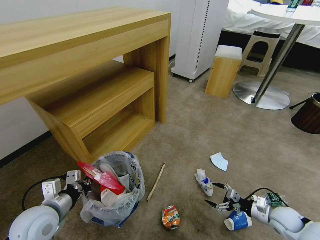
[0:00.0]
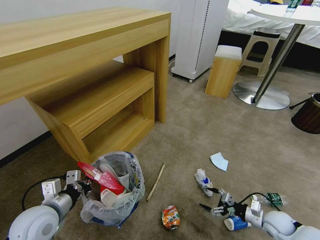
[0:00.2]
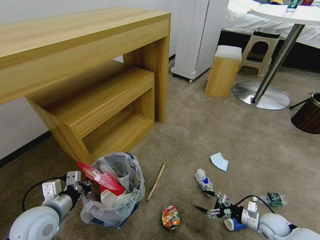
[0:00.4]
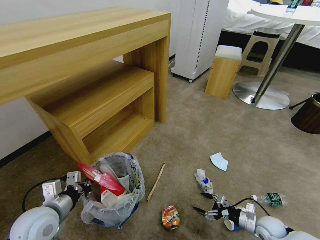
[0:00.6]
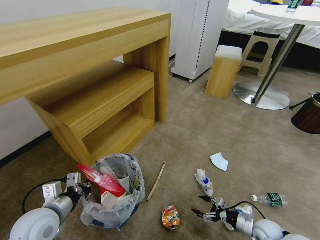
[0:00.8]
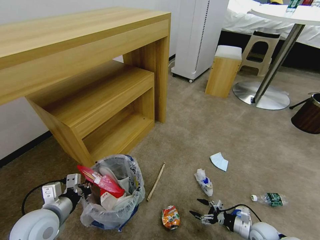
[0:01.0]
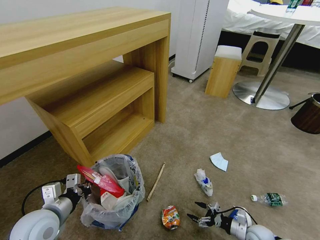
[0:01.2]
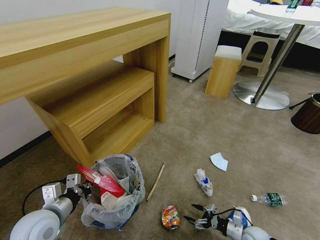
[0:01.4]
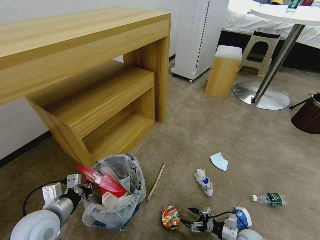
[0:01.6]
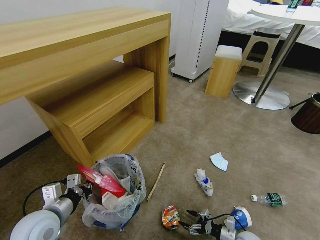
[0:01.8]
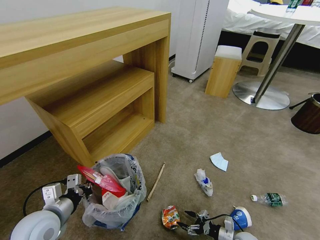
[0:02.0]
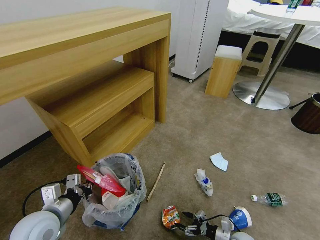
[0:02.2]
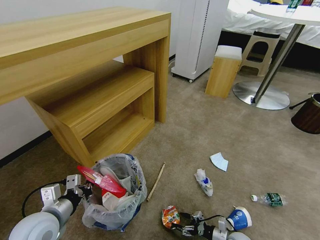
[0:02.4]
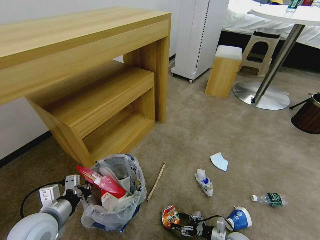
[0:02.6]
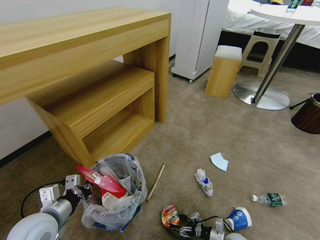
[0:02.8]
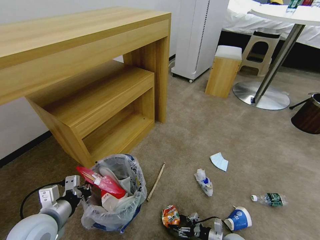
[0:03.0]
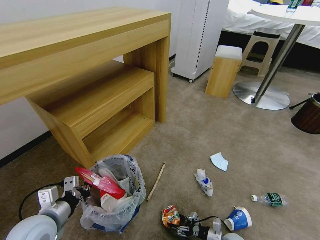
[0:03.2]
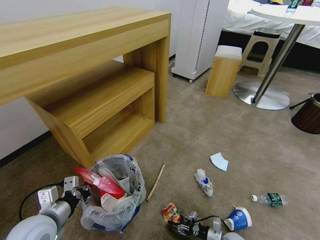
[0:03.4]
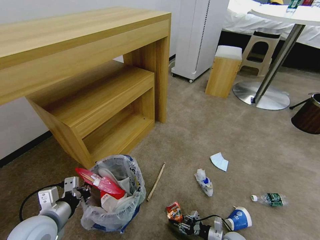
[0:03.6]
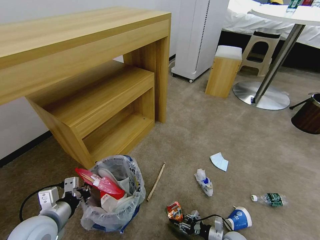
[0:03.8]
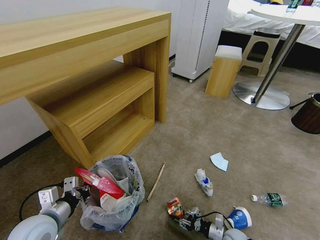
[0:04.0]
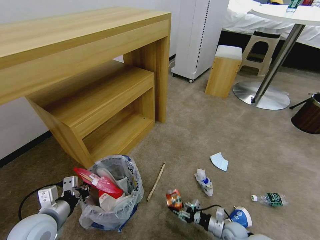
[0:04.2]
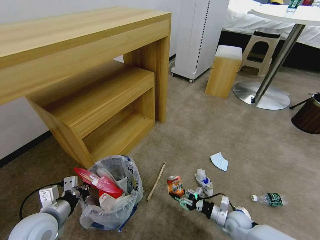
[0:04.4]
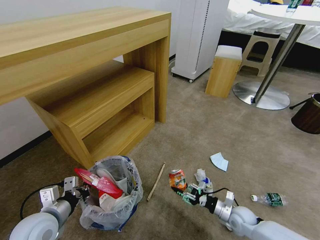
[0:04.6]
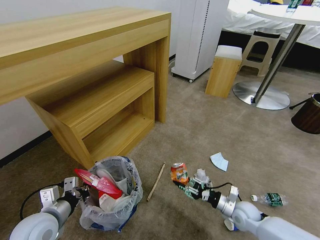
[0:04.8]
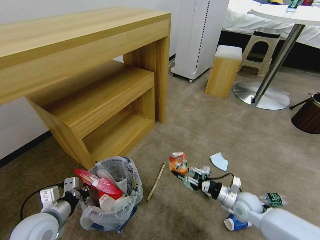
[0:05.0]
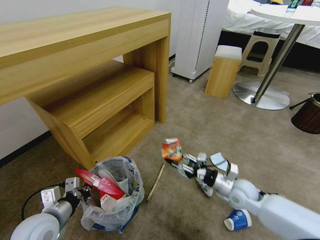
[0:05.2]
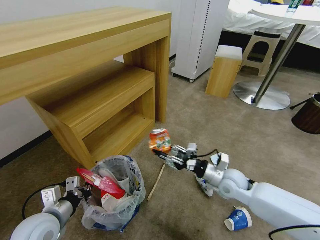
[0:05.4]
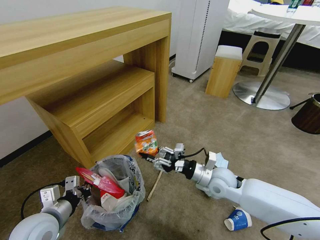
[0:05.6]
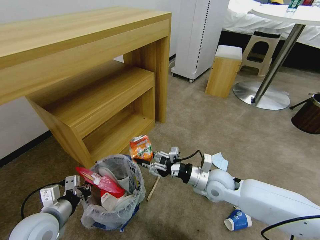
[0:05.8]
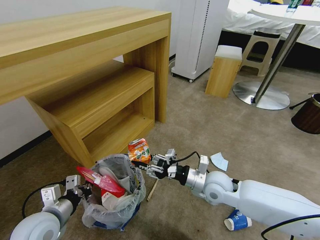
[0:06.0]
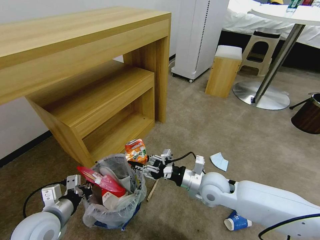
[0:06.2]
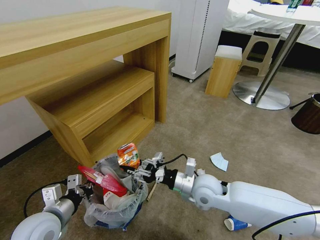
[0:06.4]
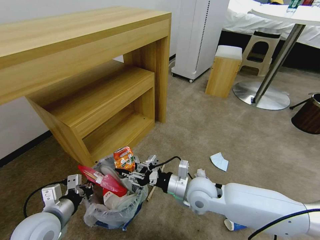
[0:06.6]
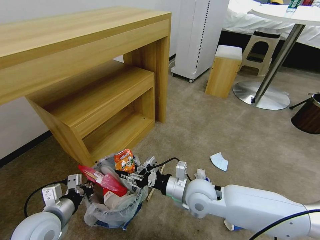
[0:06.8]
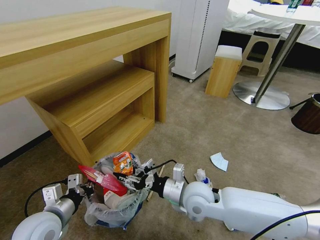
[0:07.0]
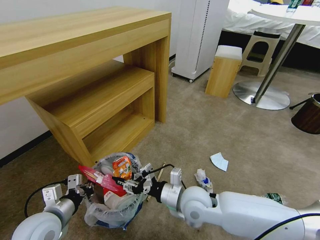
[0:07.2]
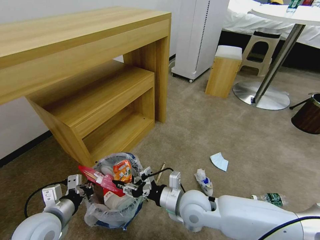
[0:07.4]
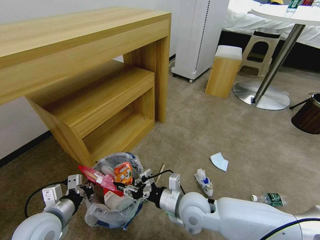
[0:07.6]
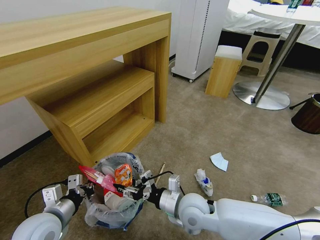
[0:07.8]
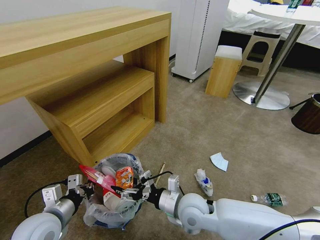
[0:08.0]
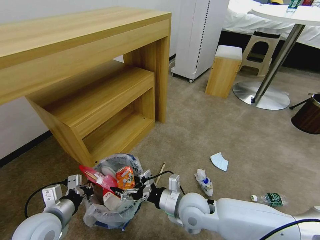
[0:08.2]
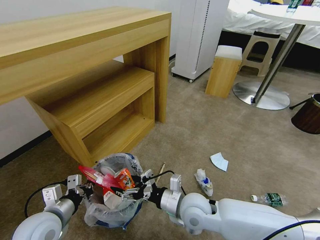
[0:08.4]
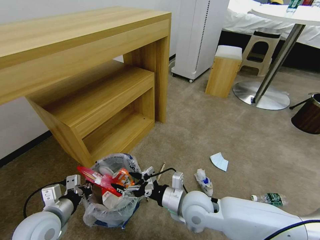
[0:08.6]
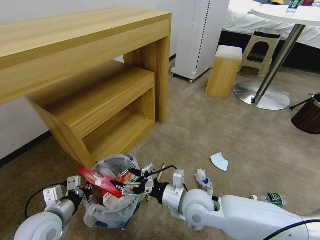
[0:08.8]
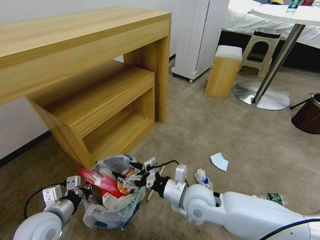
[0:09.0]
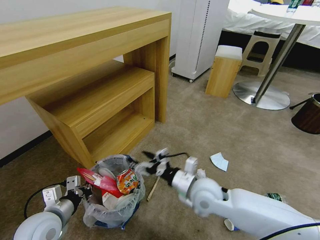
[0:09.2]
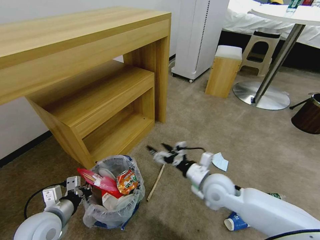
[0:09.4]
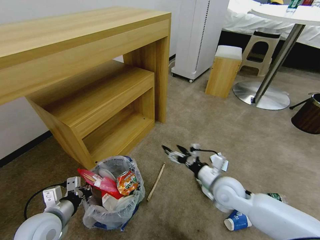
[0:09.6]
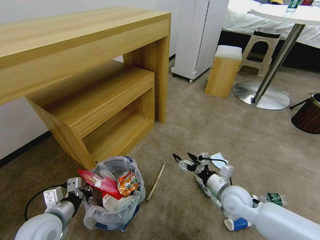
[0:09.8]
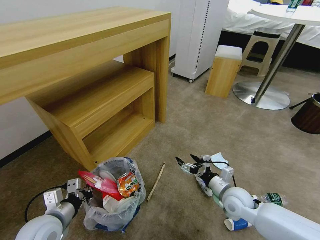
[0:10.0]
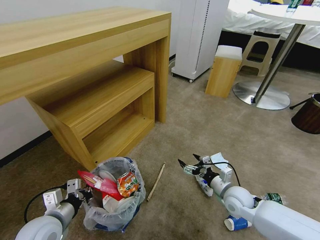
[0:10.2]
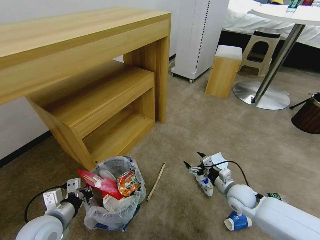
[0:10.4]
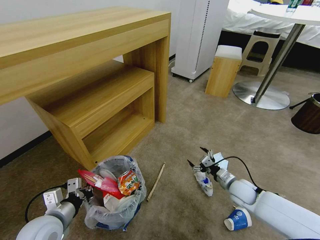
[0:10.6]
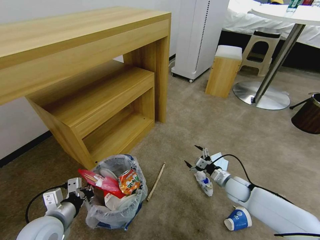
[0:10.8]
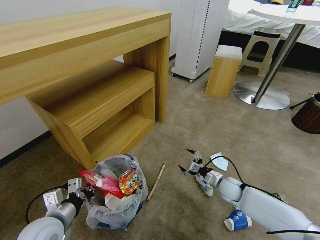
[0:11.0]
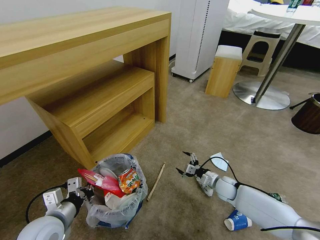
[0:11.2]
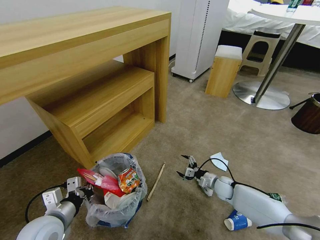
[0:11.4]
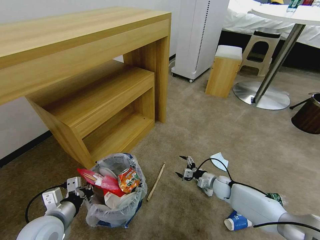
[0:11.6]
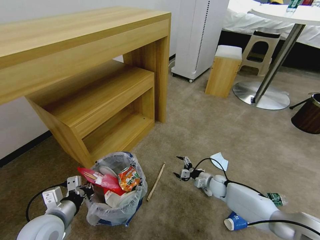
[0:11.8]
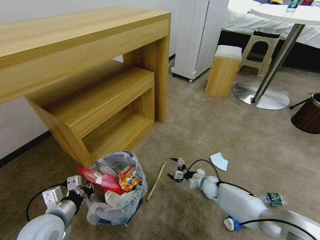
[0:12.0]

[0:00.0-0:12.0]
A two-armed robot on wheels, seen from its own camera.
Task of the whole recording: Pick up the trash bin and place the garbage on the floor into it.
0:00.0 to 0:01.6: The right gripper shifts about 15 cm downward and to the left.
0:01.6 to 0:03.0: The right gripper shifts roughly 5 cm to the left.
0:03.0 to 0:04.4: The right gripper heads upward and forward, covering about 10 cm, and closes up.
0:04.4 to 0:06.0: The right gripper is displaced upward and to the left by roughly 25 cm.
0:06.0 to 0:07.6: The right gripper moves to the left and backward, about 10 cm.
0:07.6 to 0:09.0: The right gripper opens its fingers.
0:09.0 to 0:10.4: The right gripper moves to the right and downward, approximately 20 cm.
0:10.4 to 0:12.0: The right gripper moves downward and forward, some 15 cm.

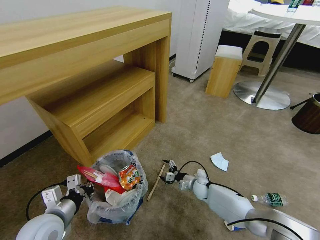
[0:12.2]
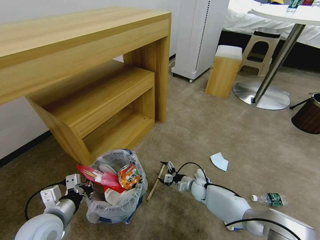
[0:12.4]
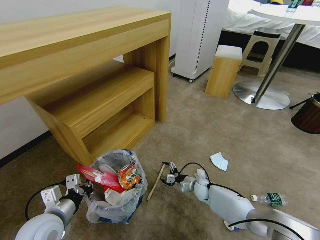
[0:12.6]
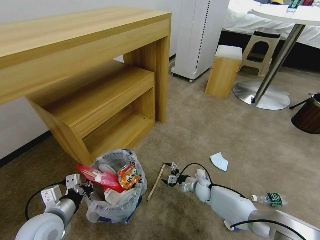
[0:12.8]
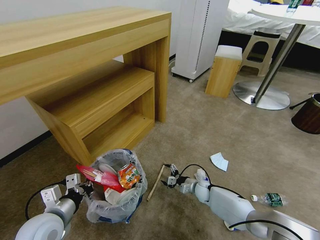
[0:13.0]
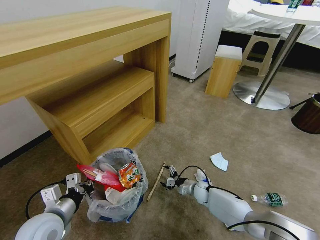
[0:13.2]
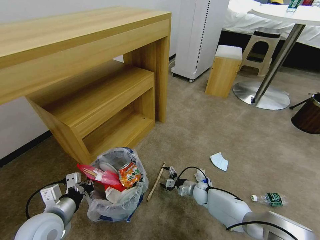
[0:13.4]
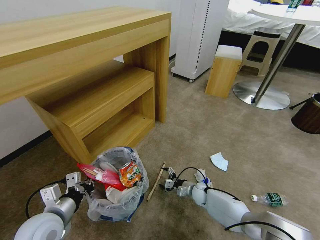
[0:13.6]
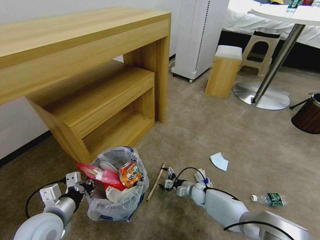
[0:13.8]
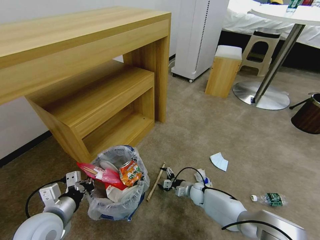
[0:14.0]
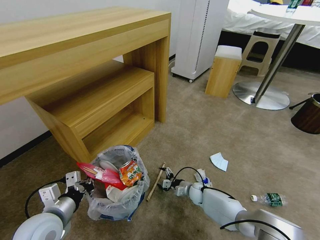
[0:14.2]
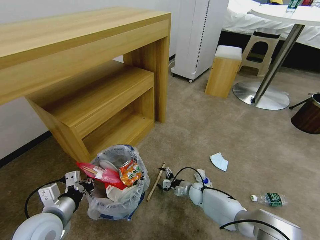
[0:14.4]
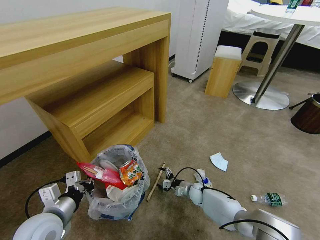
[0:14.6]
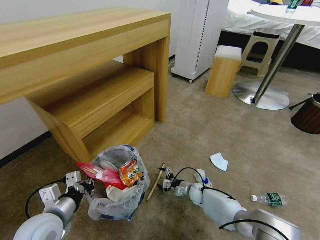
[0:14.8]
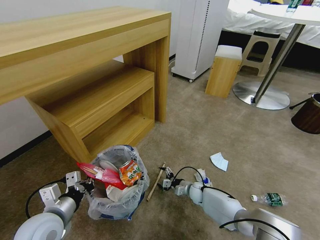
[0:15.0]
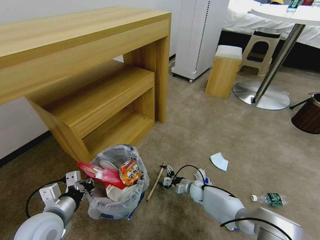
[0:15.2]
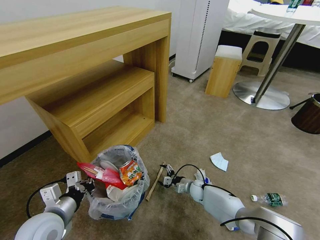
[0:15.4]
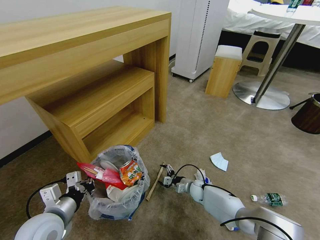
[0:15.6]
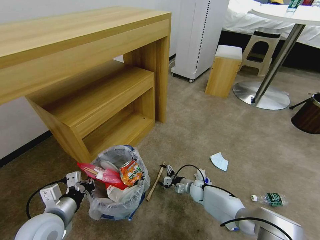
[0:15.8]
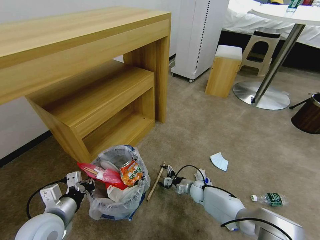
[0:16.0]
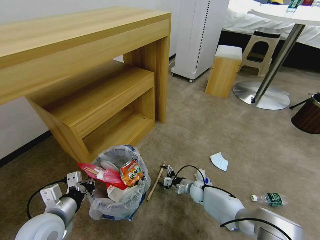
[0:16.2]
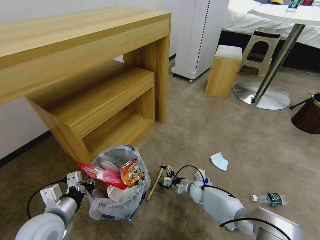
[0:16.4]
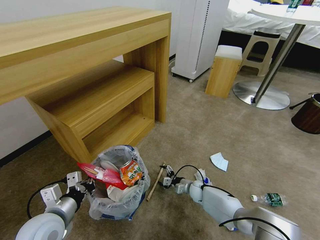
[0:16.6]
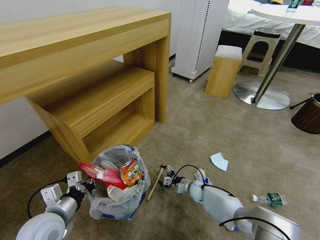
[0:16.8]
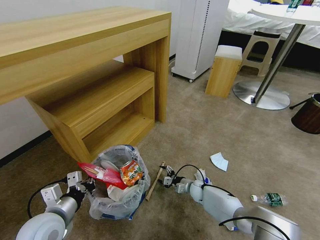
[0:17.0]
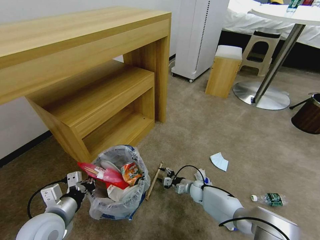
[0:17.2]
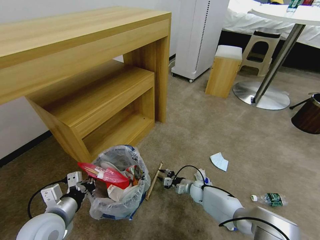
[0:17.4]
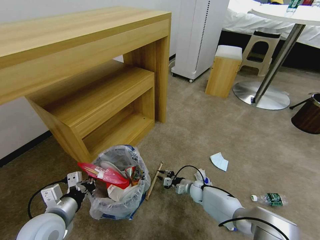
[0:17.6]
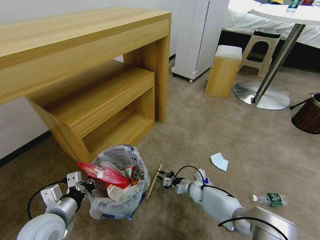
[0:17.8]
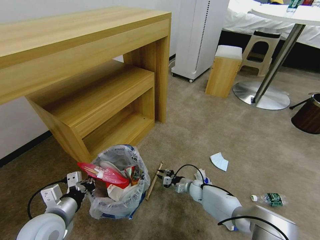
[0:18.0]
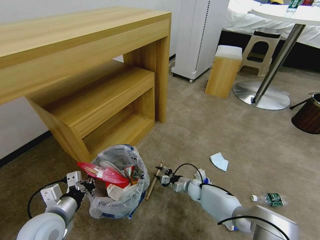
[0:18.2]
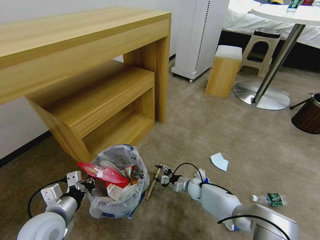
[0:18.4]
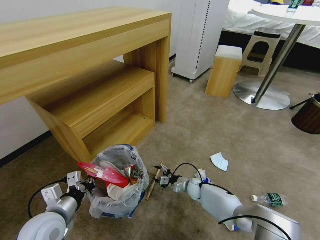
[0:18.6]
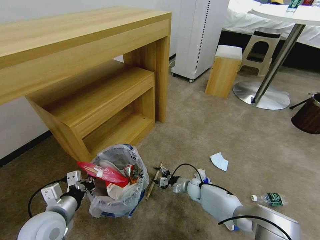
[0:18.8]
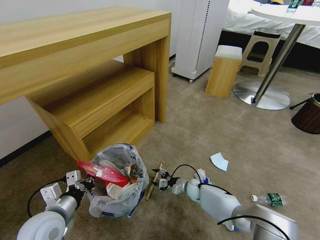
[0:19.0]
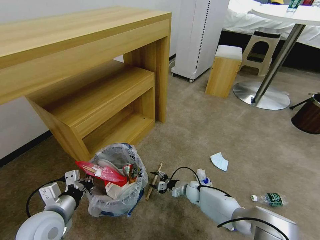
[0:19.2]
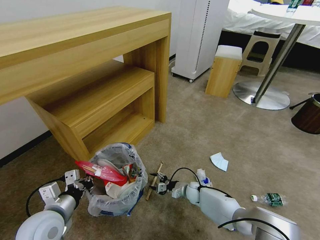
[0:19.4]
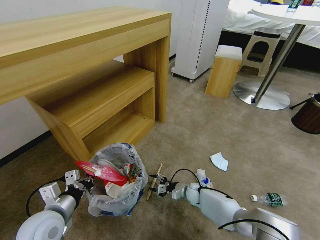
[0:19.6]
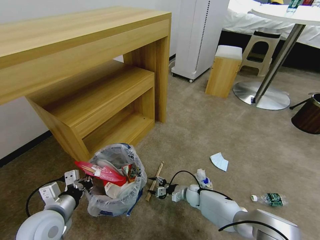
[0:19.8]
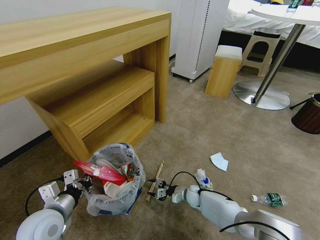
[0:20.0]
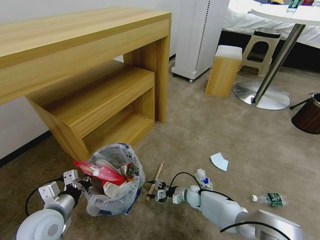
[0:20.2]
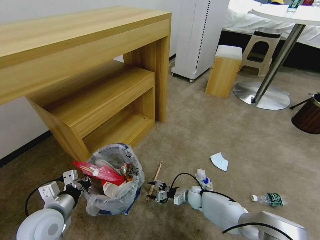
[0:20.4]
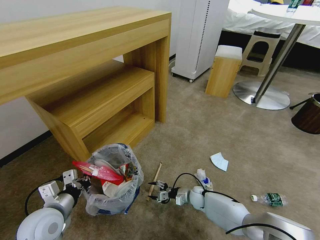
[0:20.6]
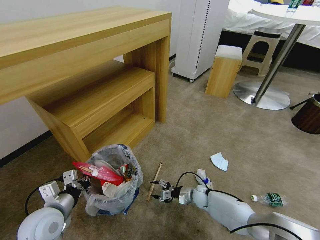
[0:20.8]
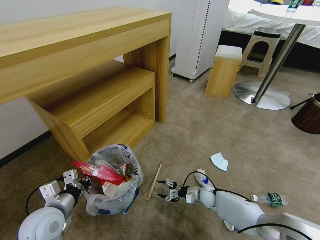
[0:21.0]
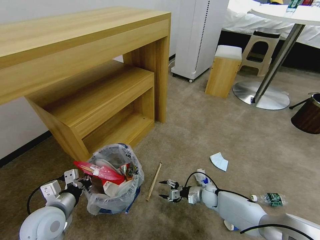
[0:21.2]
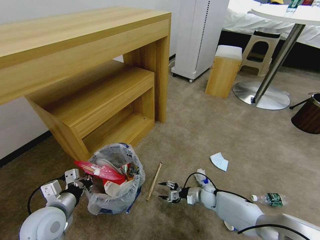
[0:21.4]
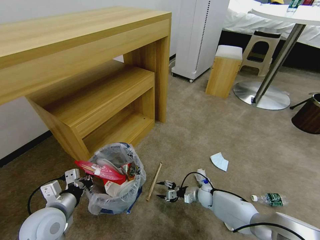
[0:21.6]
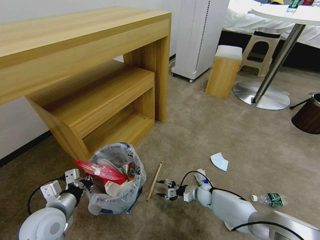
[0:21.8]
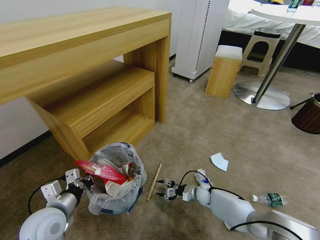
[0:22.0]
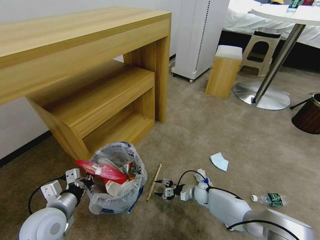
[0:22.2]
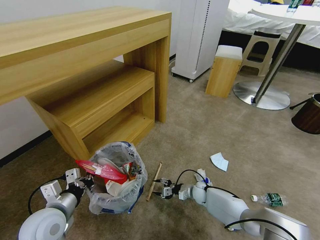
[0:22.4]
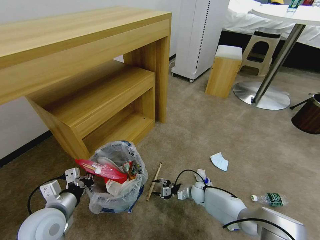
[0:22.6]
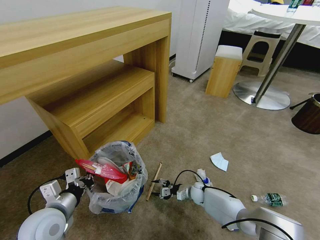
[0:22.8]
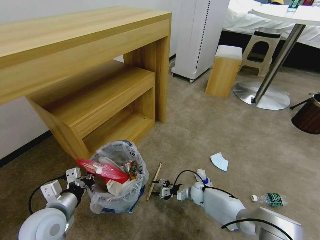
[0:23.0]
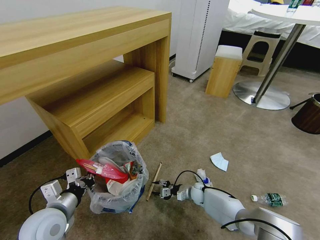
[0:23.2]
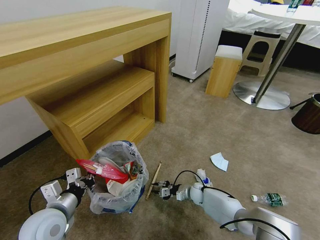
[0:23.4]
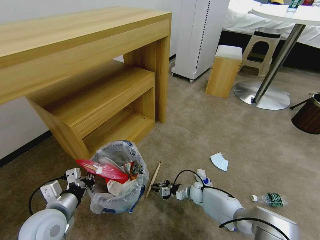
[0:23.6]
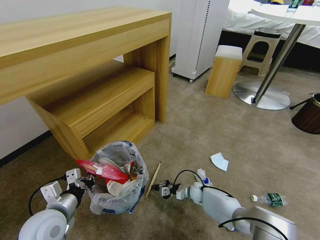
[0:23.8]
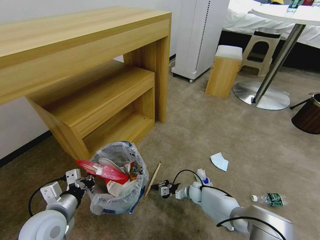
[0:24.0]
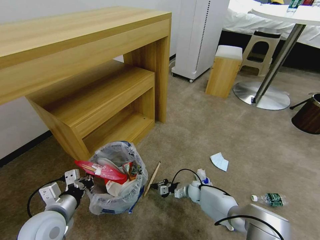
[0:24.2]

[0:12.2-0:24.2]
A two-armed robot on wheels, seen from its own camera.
Task of the whole recording: Pick up the trash bin and place the garbage on the floor into it.
0:12.2 to 0:13.8: The grippers stay close to where they were, moving slightly.
0:13.8 to 0:15.2: The two grippers keep their place.
0:15.2 to 0:16.6: Neither gripper changes place.
0:16.6 to 0:18.2: The right gripper closes up.
0:18.2 to 0:19.8: The grippers make only small movements.
0:19.8 to 0:21.2: The right gripper heads to the right, covering about 5 cm.
0:21.2 to 0:22.6: The right gripper moves some 5 cm.
0:22.6 to 0:24.2: The right gripper closes its fingers.
